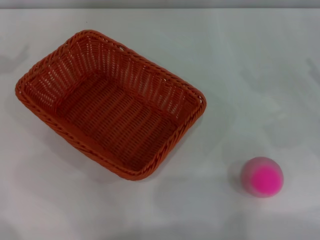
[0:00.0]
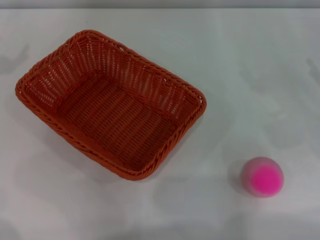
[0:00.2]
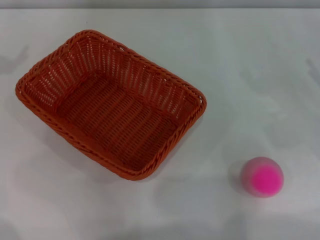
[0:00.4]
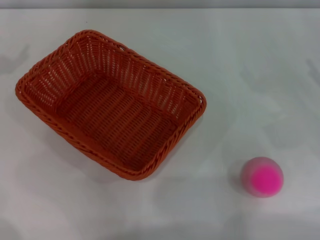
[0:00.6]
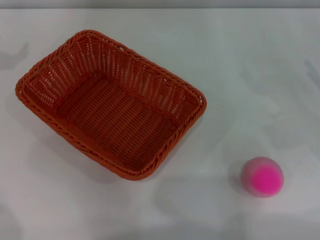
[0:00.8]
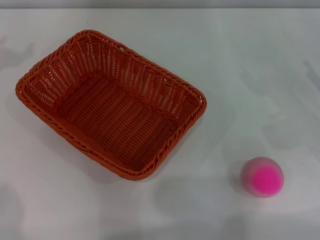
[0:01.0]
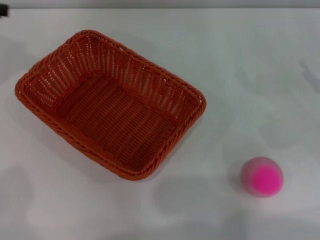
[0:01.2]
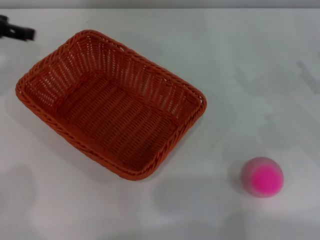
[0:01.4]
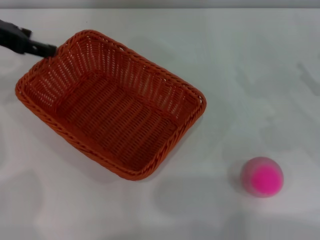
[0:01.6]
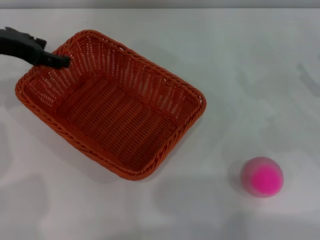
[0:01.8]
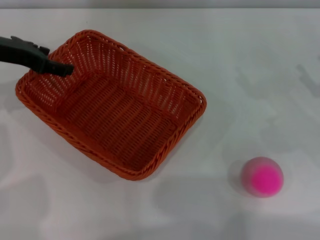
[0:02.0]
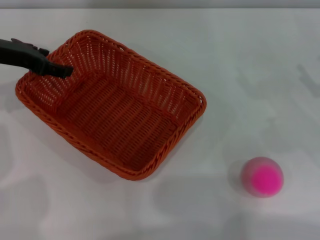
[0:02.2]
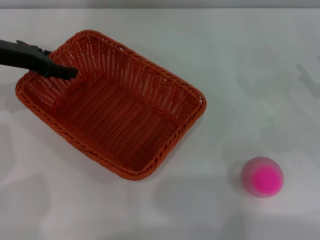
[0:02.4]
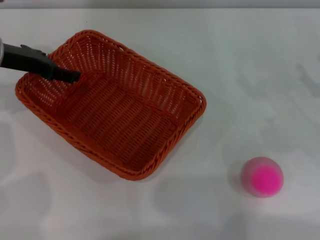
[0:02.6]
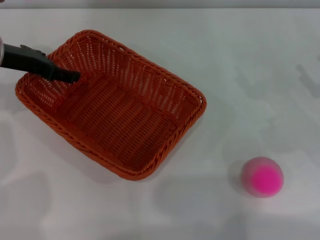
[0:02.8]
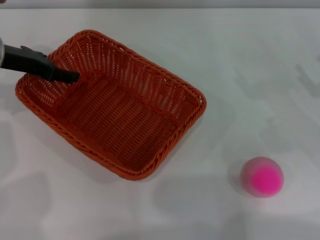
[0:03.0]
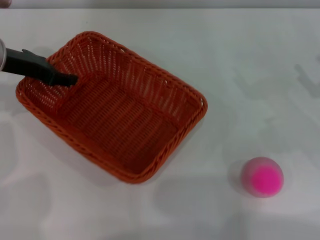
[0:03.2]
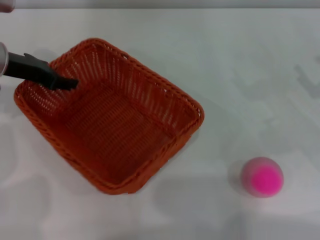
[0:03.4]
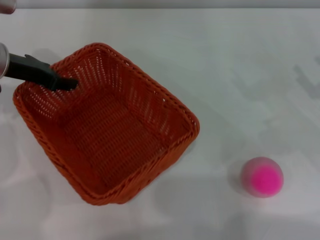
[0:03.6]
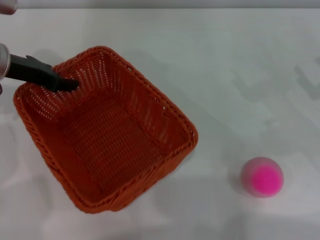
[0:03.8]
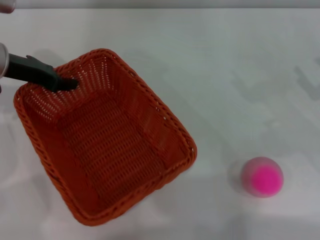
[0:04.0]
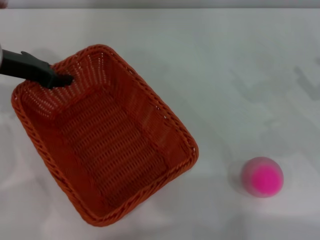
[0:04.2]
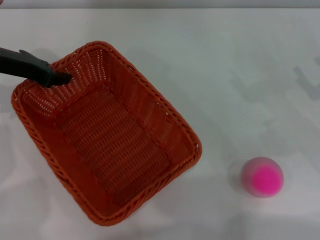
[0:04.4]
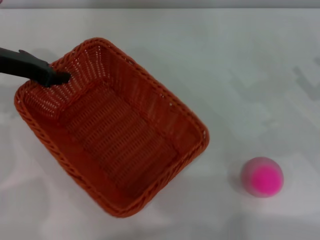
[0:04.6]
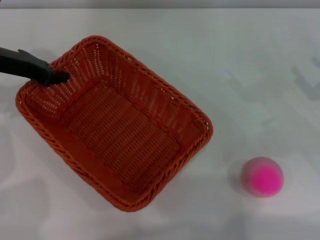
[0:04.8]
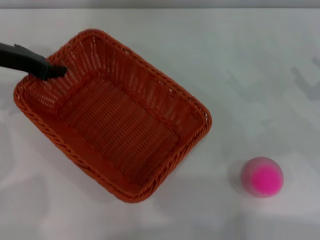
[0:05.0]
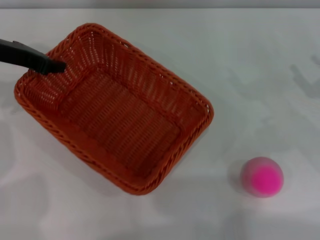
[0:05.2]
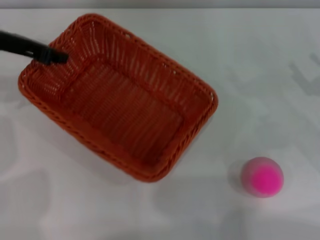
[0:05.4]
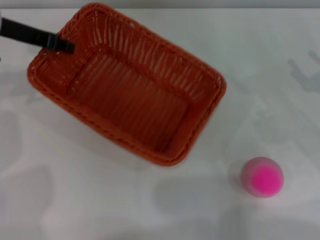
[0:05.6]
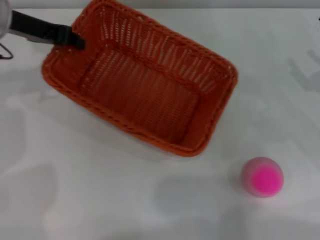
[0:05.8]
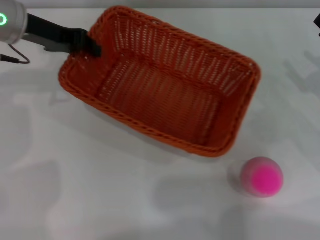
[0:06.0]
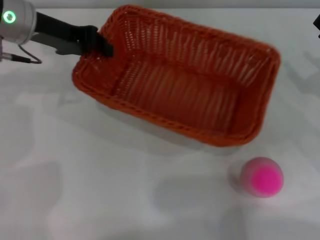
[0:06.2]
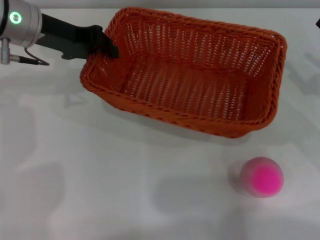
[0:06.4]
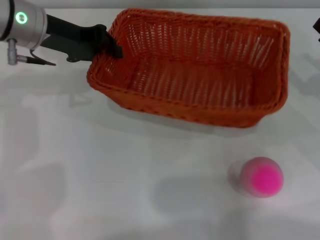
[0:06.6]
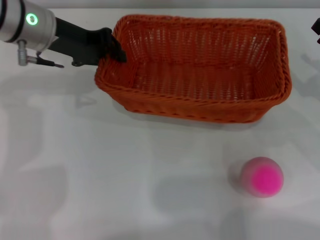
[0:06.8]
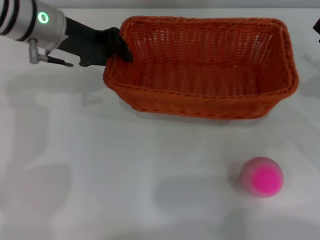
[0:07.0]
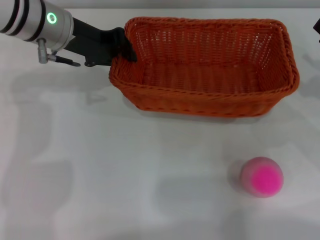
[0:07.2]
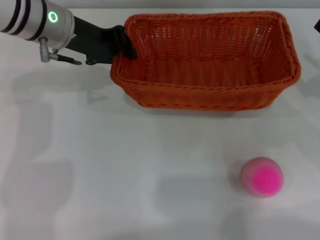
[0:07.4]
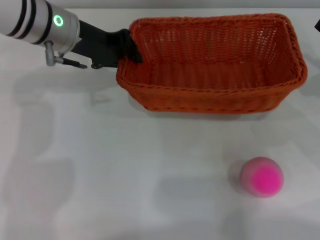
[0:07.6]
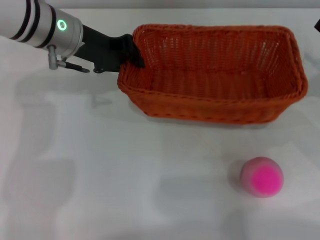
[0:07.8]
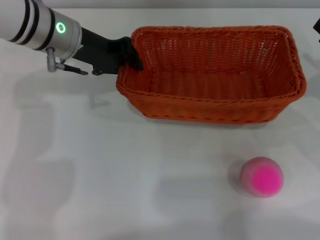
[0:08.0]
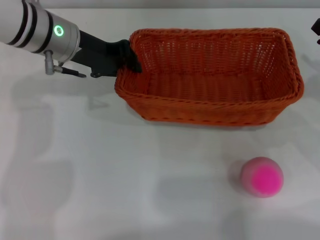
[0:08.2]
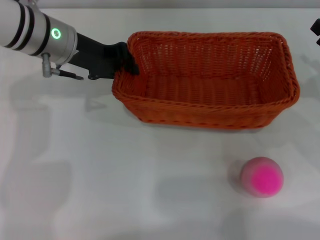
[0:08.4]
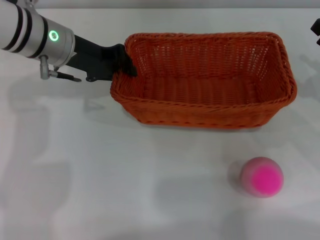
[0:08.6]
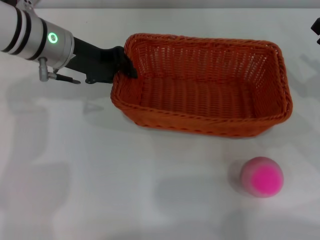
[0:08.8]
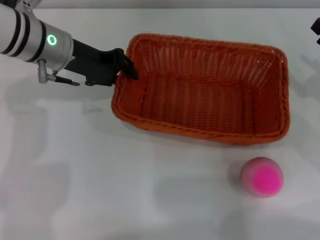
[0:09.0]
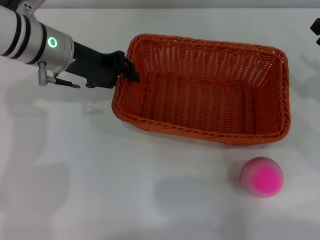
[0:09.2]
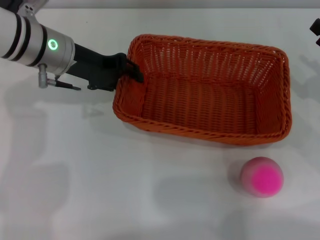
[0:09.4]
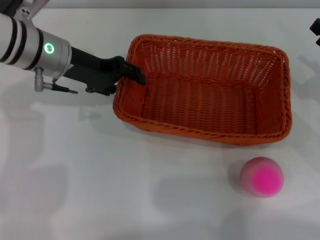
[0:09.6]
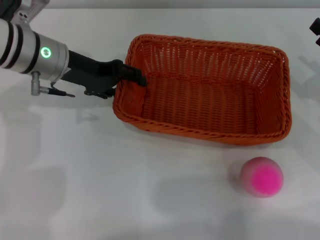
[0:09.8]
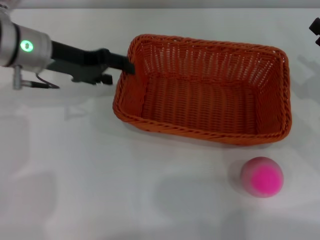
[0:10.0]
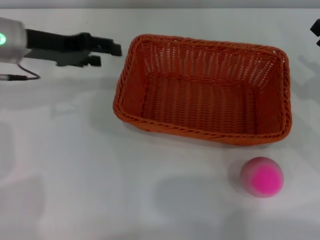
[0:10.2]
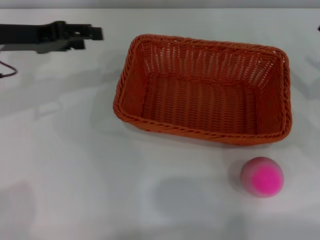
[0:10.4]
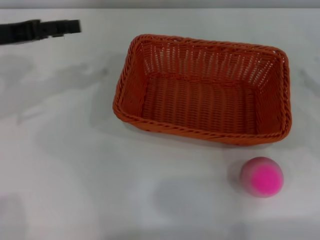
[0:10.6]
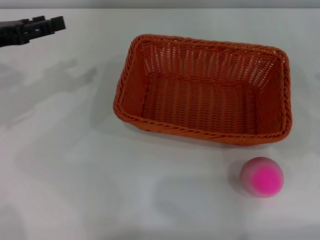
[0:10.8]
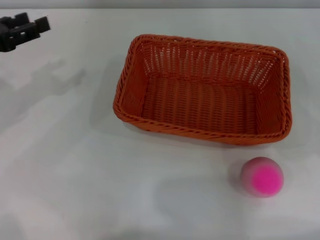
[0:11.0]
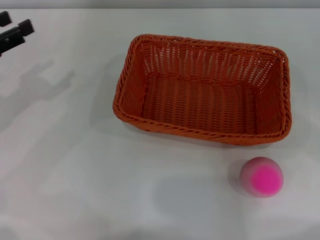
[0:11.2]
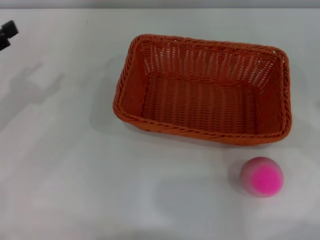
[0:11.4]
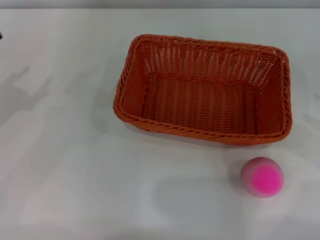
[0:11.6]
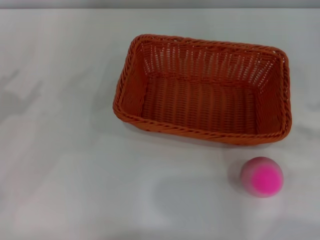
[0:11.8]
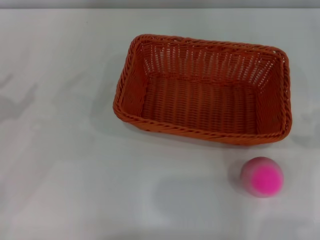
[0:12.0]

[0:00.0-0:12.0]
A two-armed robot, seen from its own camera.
Step, 0:00.0 to 0:04.8: Pick up the light basket with the left gripper.
Step, 0:05.0 to 0:10.0: Place the light basket in the center of view with the right gripper.
0:00.0 to 0:01.6: The left gripper moves to the right and forward, roughly 10 cm.
0:01.6 to 0:03.0: The left gripper shifts approximately 5 cm downward.
0:03.0 to 0:04.4: The left gripper closes.
0:04.4 to 0:06.0: The left gripper moves about 5 cm.
0:06.0 to 0:07.6: The left gripper moves to the right, some 5 cm.
0:09.0 to 0:10.4: The left gripper travels to the left by approximately 10 cm, and opens.
0:10.4 to 0:12.0: The left gripper heads backward, to the left and downward, covering some 20 cm.

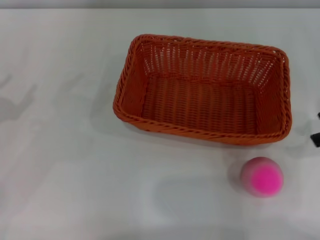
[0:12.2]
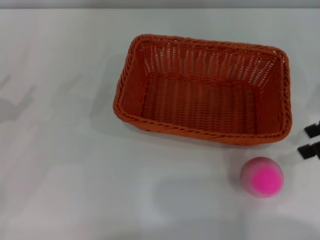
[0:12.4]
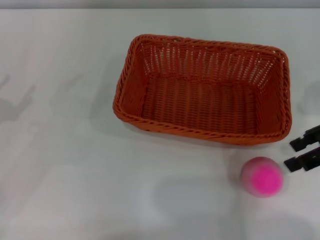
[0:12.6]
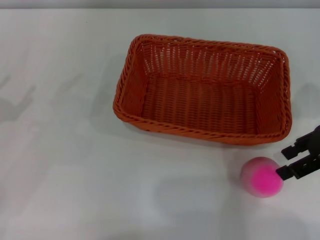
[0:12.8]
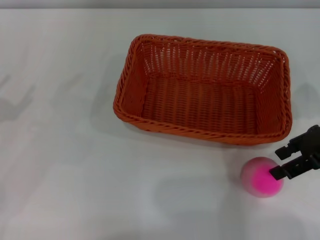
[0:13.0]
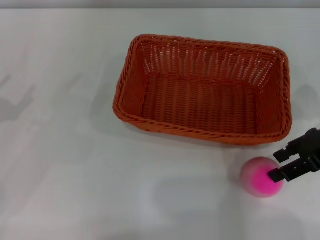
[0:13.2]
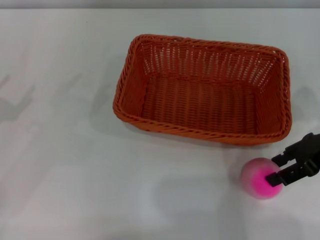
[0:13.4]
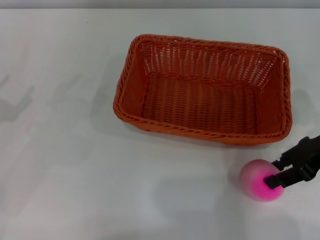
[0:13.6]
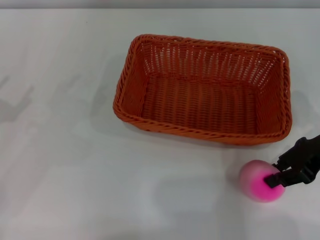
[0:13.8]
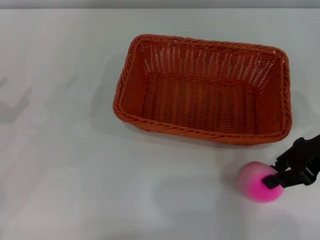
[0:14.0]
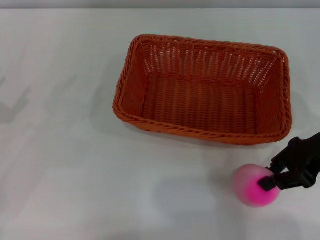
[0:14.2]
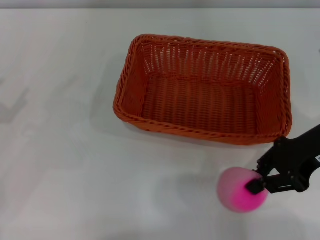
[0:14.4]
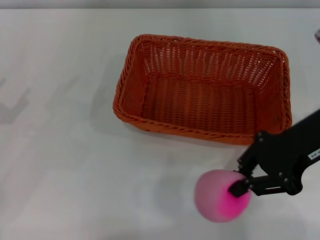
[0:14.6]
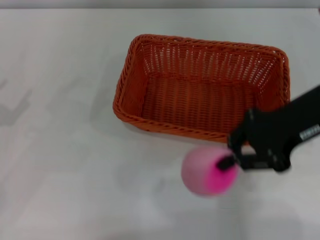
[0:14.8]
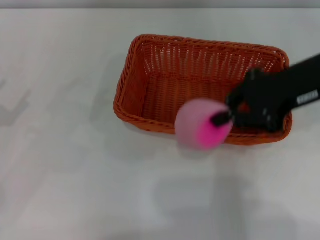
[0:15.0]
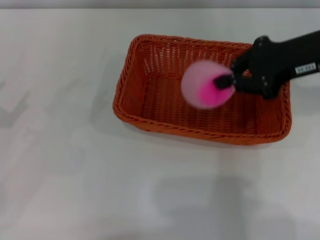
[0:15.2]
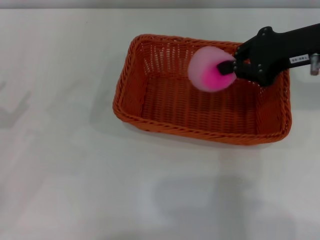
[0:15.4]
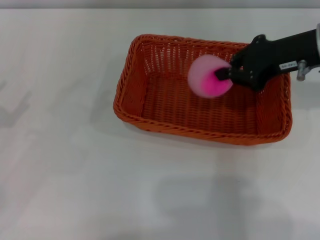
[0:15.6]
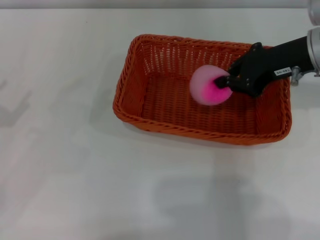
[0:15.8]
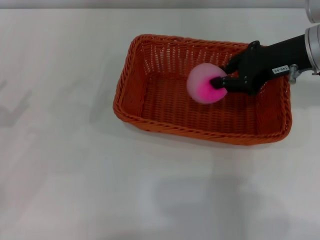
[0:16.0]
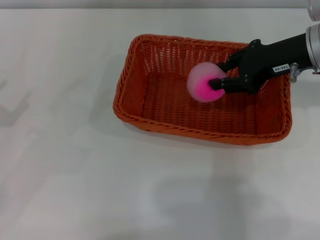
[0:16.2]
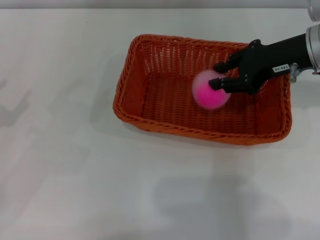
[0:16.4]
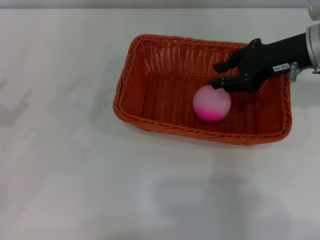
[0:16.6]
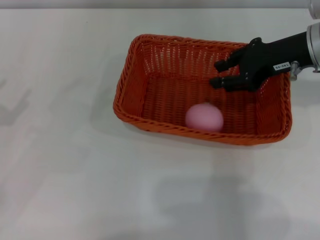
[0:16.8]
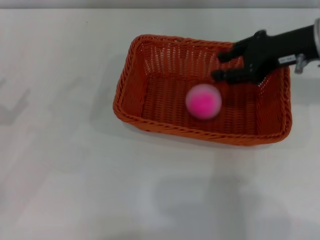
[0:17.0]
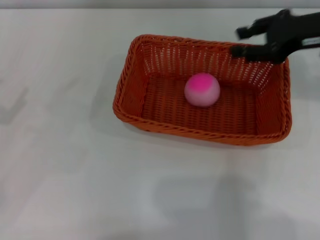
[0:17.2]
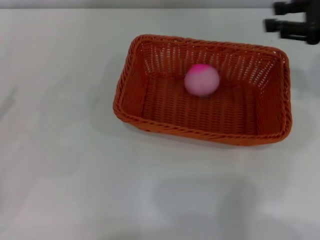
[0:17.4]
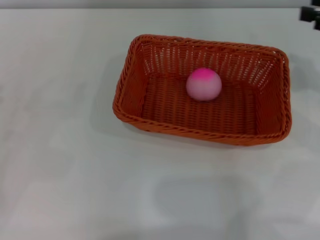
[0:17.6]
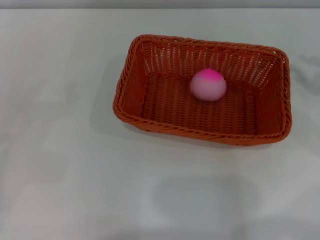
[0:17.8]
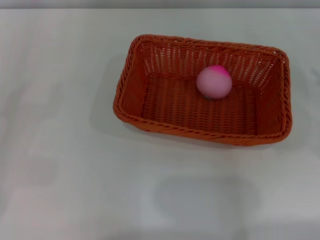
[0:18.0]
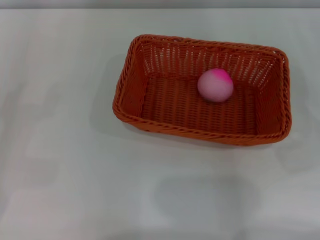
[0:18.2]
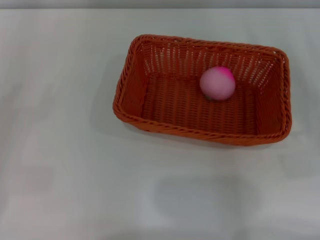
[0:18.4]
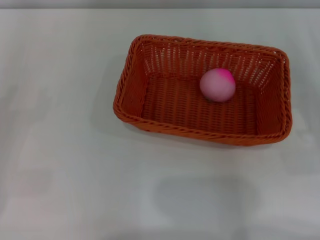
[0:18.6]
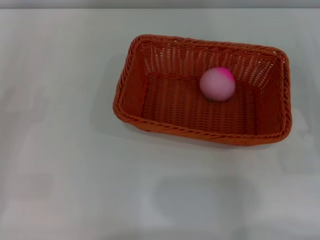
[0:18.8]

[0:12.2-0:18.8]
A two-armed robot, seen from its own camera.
0:12.2 to 0:13.8: The right gripper heads downward and to the left, covering roughly 10 cm, and closes up.
0:13.8 to 0:15.4: The right gripper is displaced upward and forward by some 10 cm, and closes up.
0:15.4 to 0:17.2: The right gripper opens its fingers.
0:17.2 to 0:18.8: The right gripper is displaced downward, backward and to the right by roughly 25 cm.

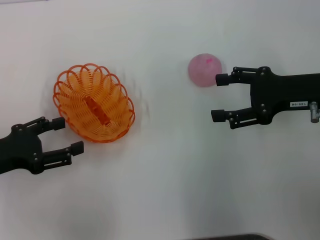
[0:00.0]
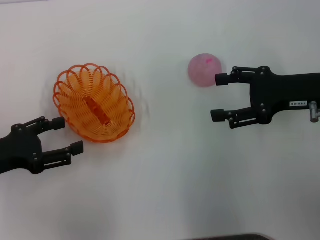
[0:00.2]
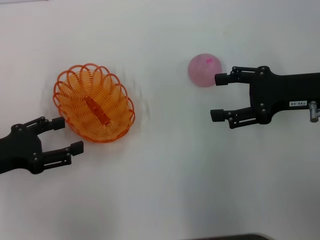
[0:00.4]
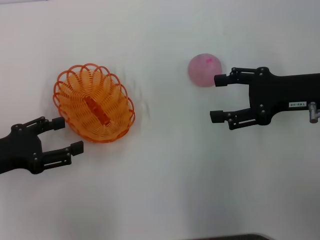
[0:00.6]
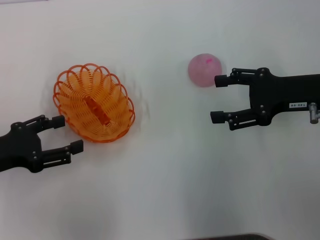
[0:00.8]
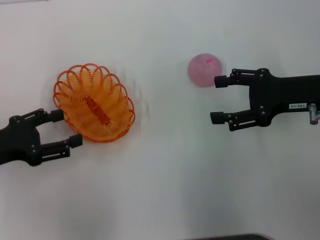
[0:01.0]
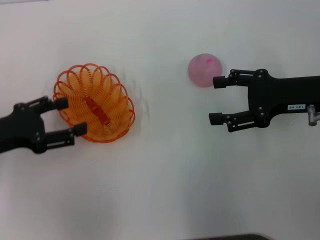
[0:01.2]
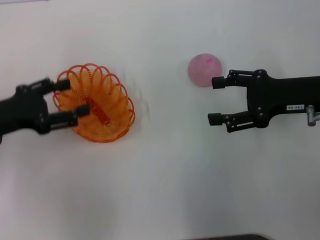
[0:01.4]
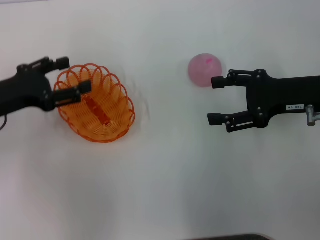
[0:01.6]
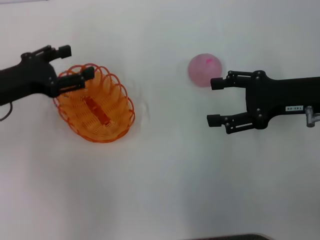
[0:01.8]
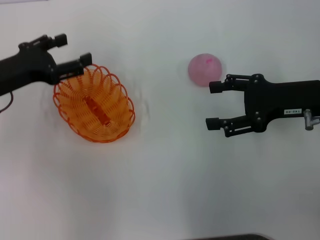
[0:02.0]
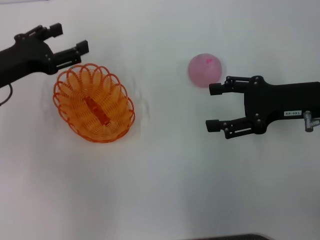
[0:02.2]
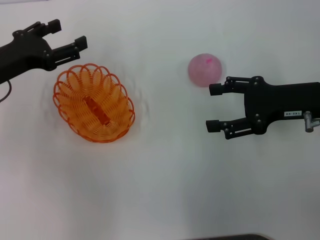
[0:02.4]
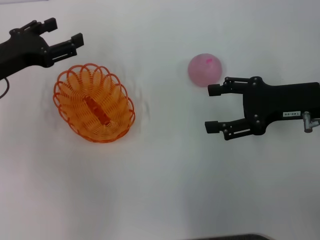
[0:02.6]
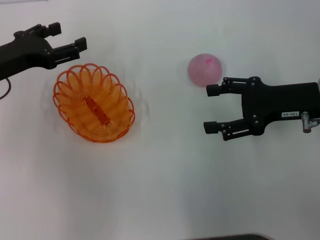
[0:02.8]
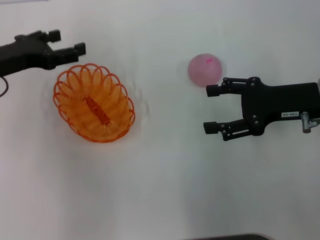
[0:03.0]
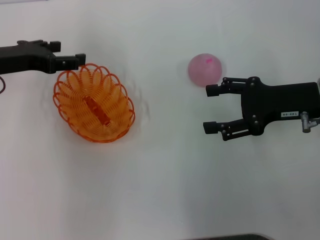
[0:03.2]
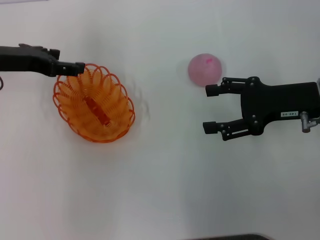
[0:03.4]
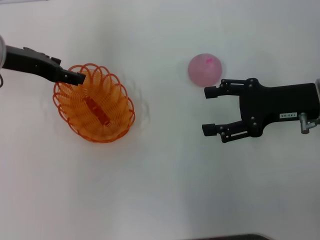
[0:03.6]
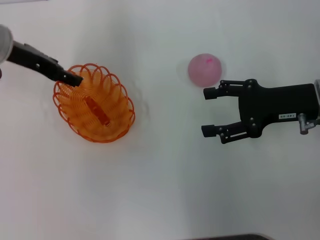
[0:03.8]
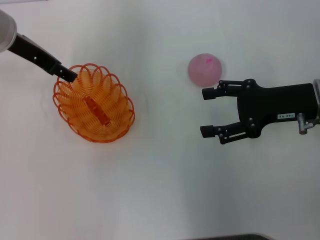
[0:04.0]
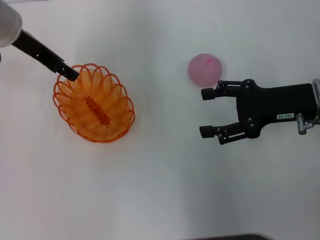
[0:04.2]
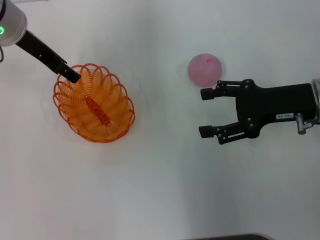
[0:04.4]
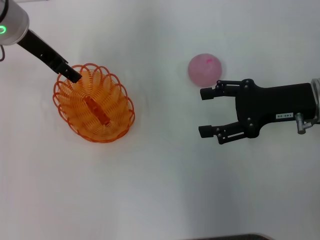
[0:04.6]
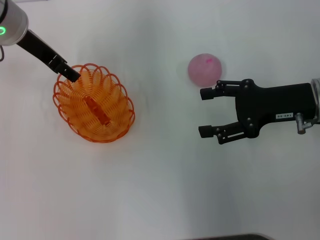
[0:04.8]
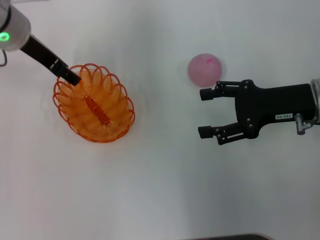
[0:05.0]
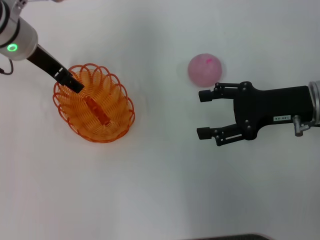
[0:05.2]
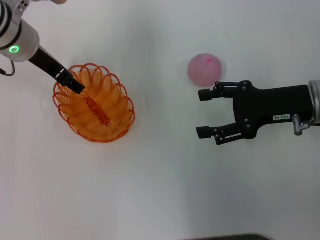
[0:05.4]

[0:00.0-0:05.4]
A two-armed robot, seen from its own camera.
0:00.0 to 0:01.4: The grippers make only small movements.
0:01.4 to 0:02.8: The left gripper heads forward, covering about 5 cm.
0:02.8 to 0:04.0: The left gripper goes roughly 10 cm forward, upward and to the right.
0:04.0 to 0:05.4: The grippers move only a little.
